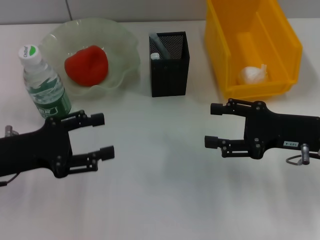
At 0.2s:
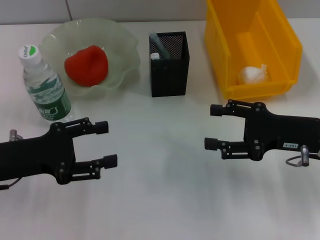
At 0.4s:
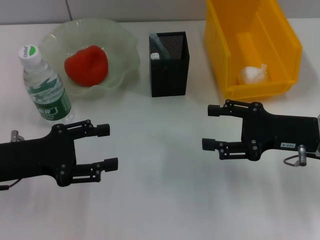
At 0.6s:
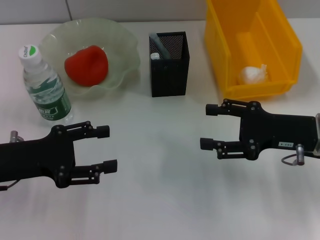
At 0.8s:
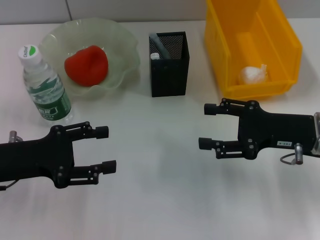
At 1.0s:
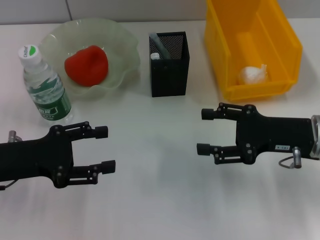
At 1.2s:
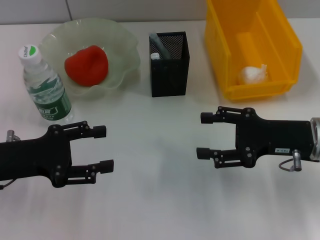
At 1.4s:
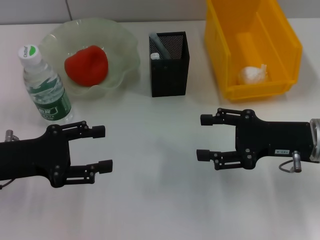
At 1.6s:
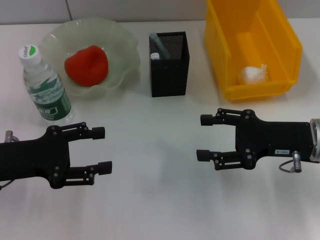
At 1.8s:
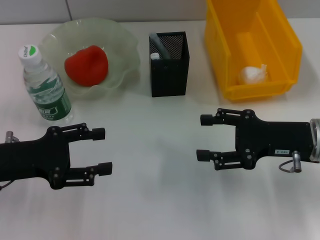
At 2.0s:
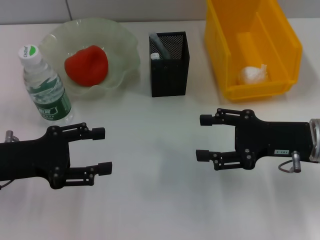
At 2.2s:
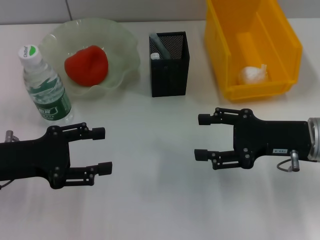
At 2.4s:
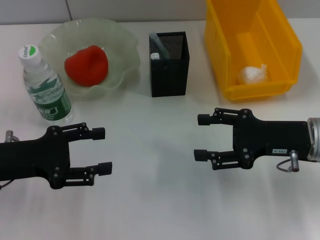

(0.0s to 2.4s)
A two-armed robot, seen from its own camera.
0.0s - 1.2s: The grippers move only a little.
1.2s - 2.4s: The two grippers keep their place.
